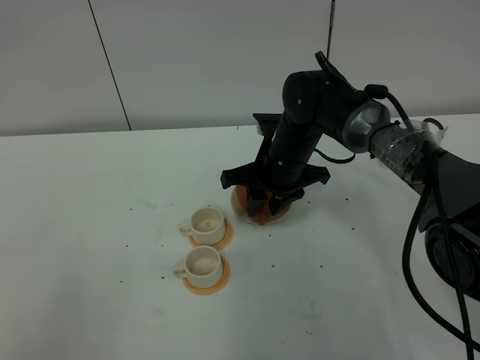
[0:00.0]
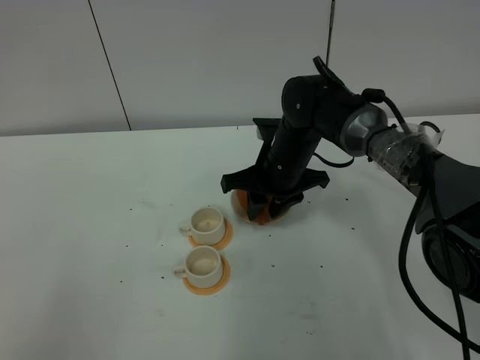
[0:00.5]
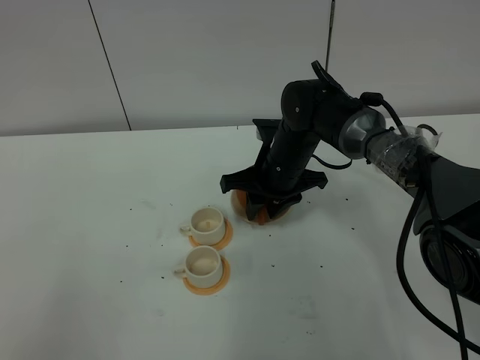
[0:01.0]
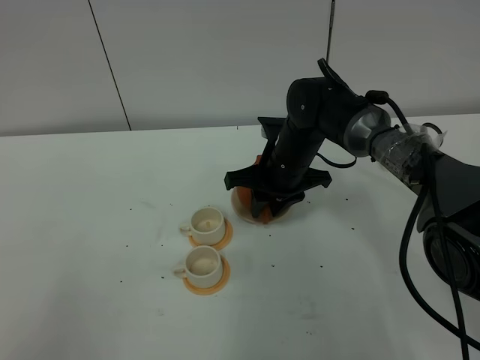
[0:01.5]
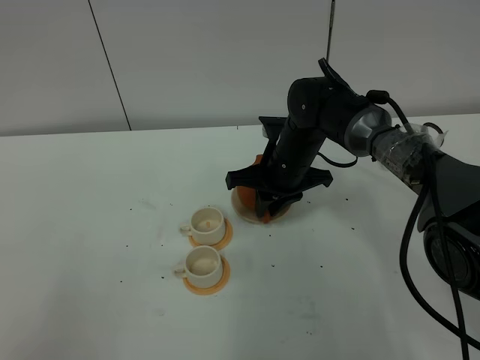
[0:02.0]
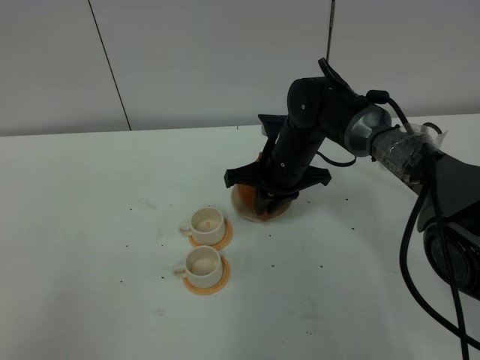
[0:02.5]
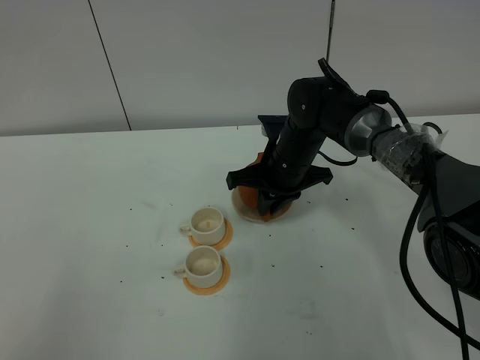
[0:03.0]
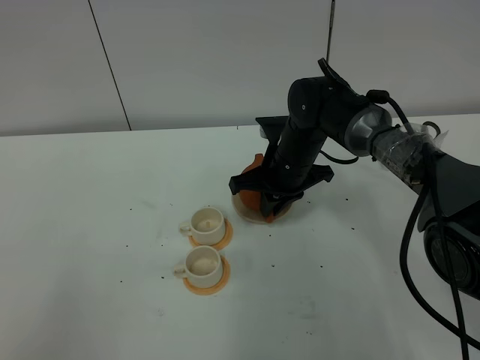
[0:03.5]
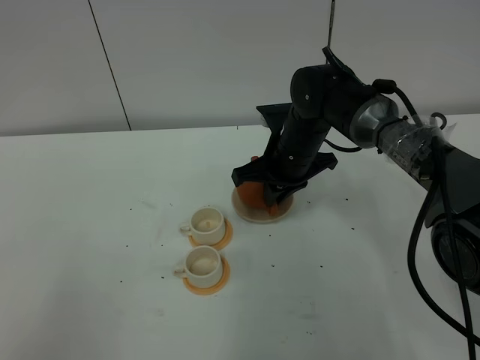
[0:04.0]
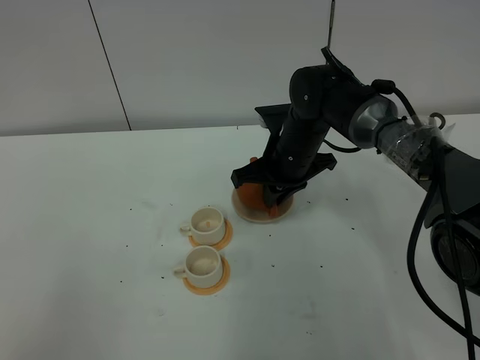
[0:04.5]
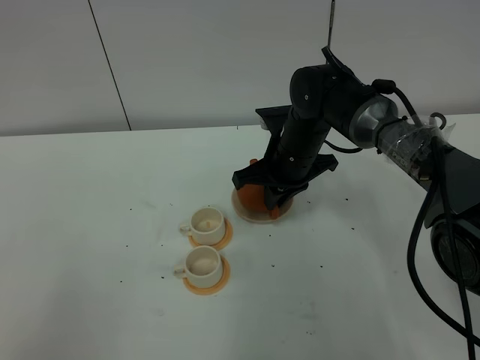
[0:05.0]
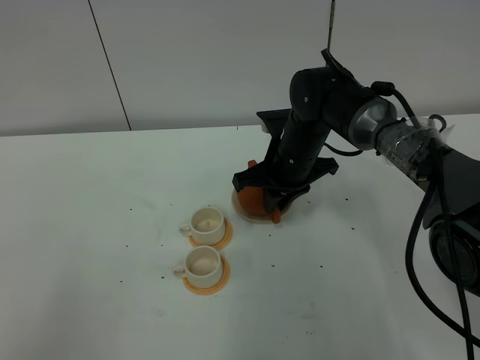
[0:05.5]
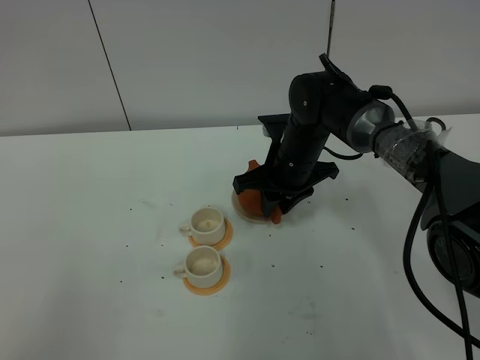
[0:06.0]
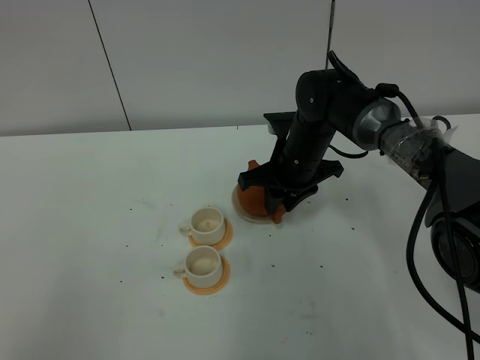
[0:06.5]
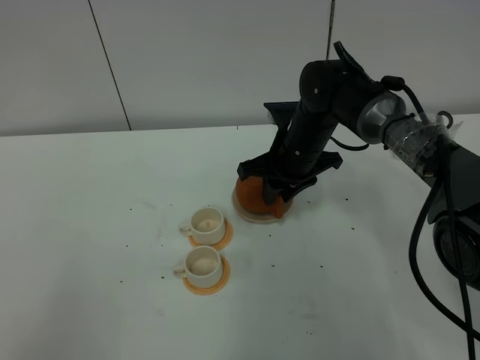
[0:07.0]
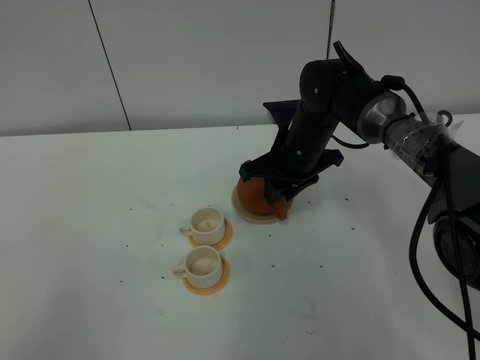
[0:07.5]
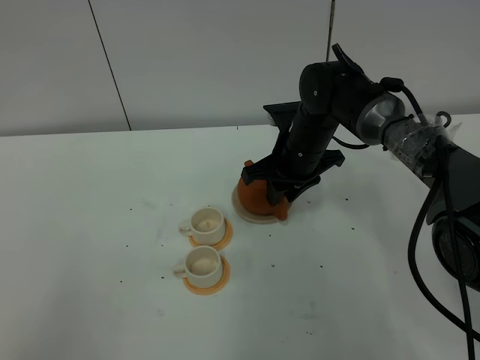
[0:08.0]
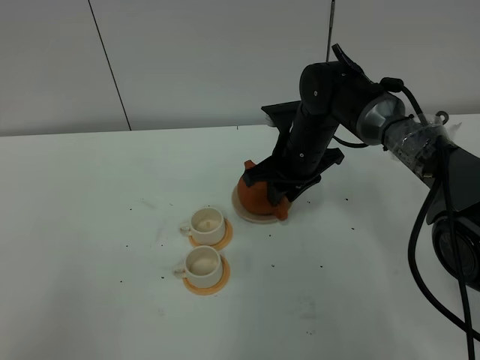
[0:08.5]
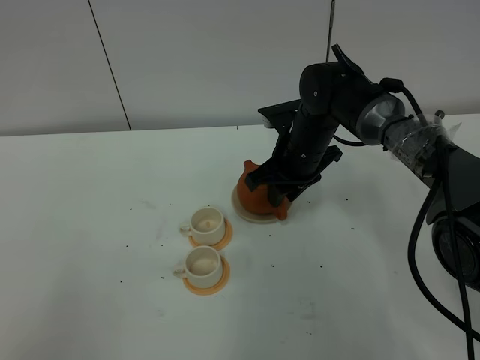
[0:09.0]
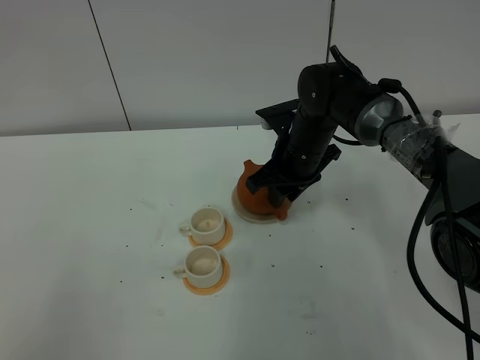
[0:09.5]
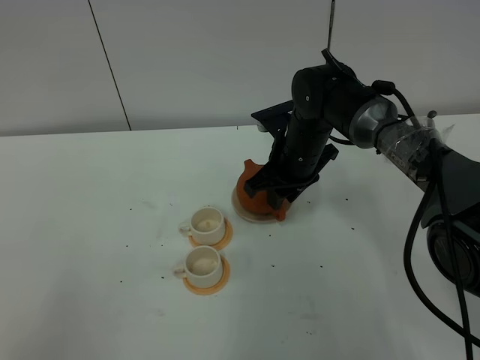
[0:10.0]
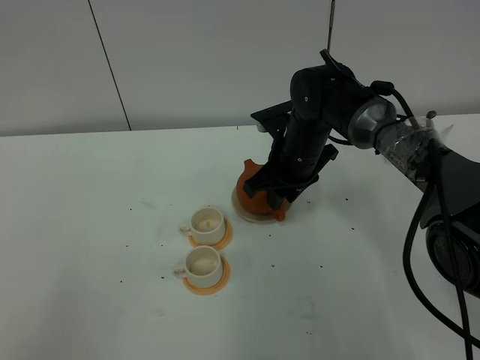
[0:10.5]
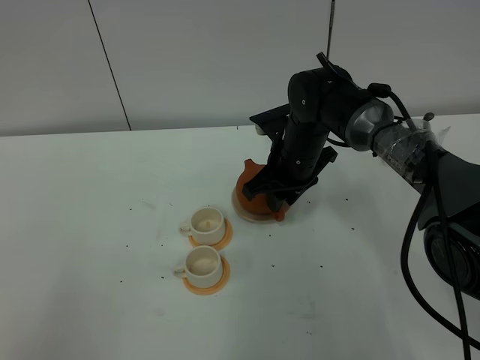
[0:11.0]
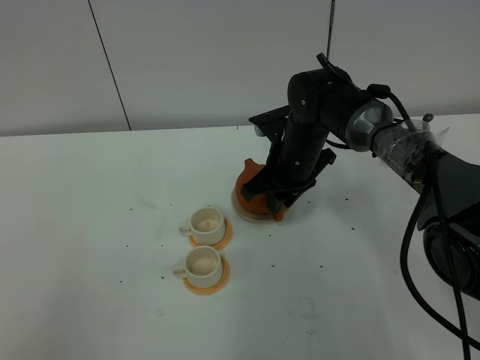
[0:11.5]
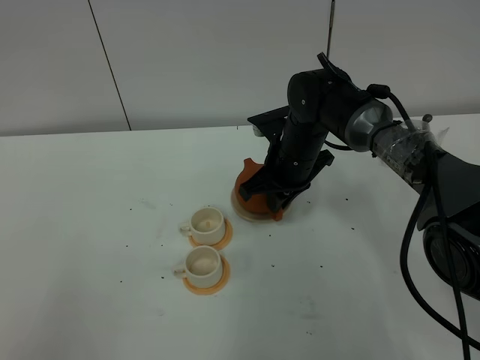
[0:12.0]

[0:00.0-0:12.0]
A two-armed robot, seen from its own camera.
Task of the whole recording: grasp the brown teapot and pour the tea into the two white teacups one by one, put the brown teapot back in its original place.
0:00.0 to 0:02.0: The right gripper closes up.
0:02.0 to 0:04.0: There are only small adjustments of the grippers.
0:04.0 to 0:06.0: The right gripper opens its fingers.
0:06.0 to 0:10.0: The grippers stay close to where they were, moving slightly.
0:10.0 to 0:12.0: The right gripper closes its fingers.

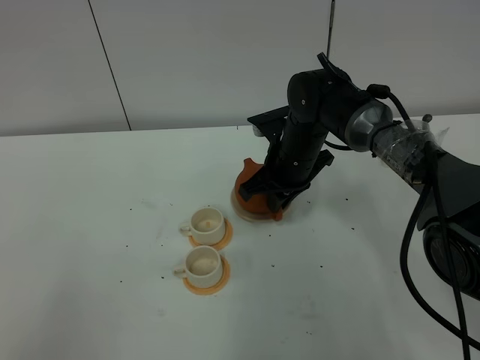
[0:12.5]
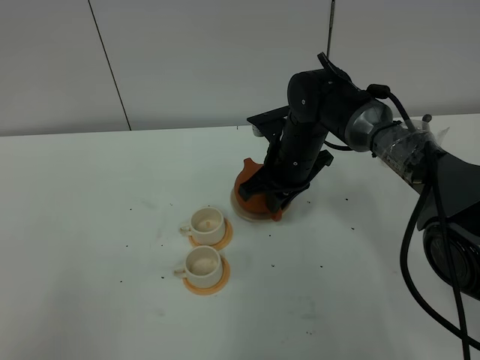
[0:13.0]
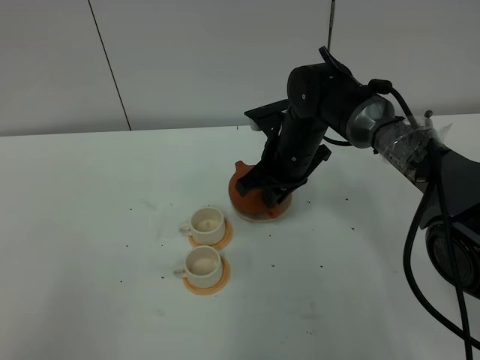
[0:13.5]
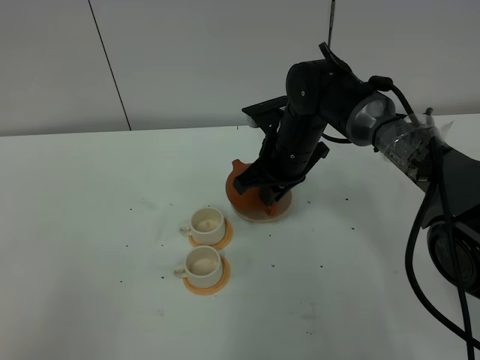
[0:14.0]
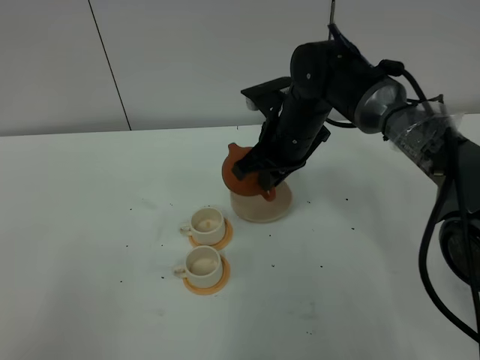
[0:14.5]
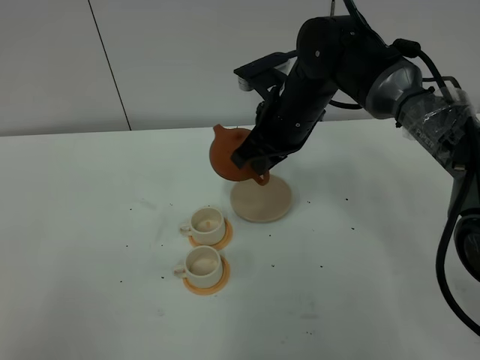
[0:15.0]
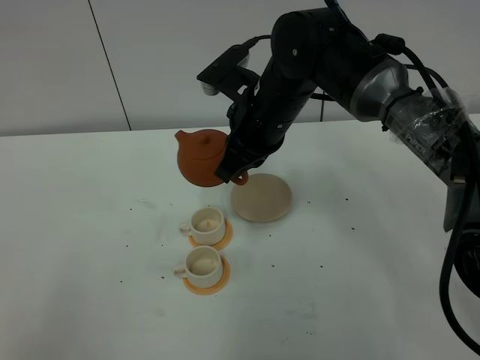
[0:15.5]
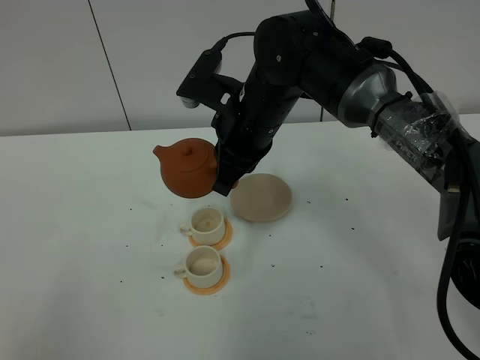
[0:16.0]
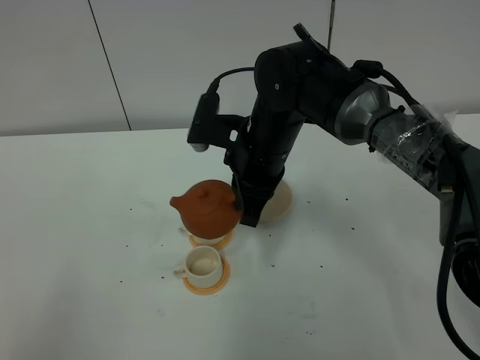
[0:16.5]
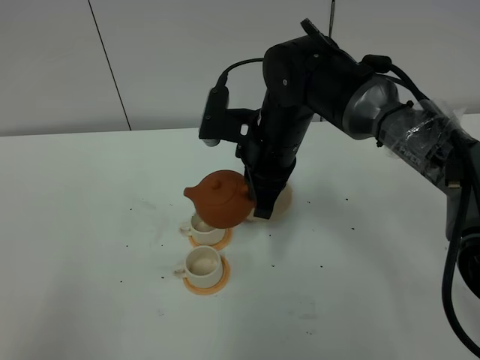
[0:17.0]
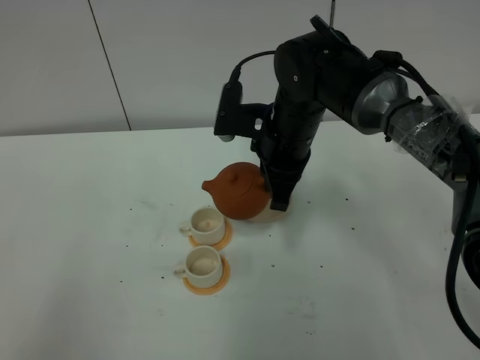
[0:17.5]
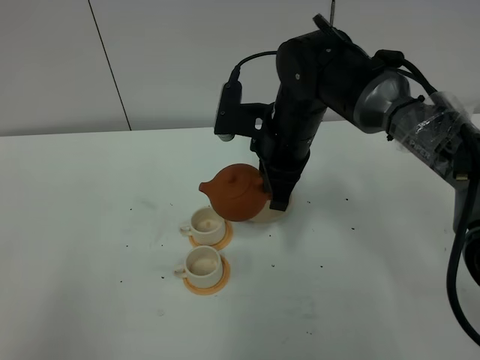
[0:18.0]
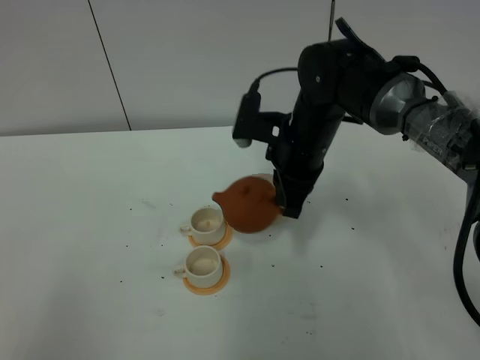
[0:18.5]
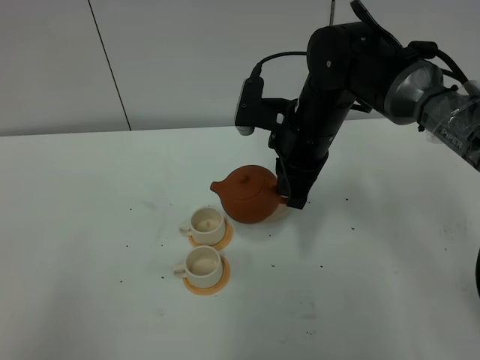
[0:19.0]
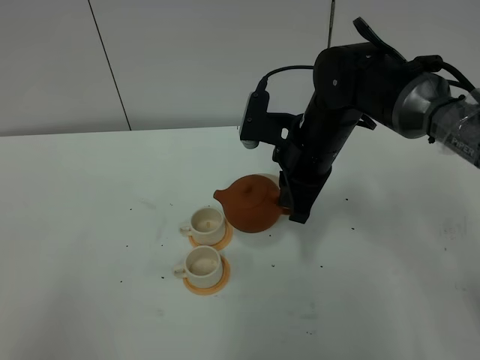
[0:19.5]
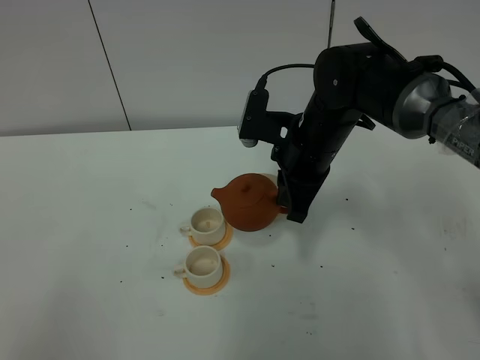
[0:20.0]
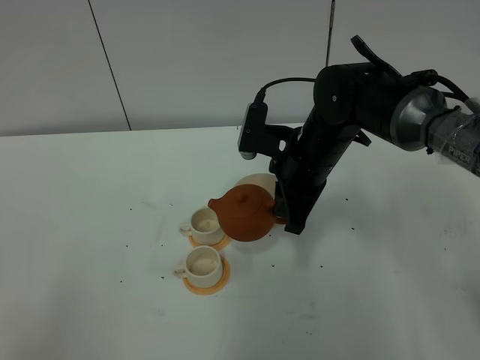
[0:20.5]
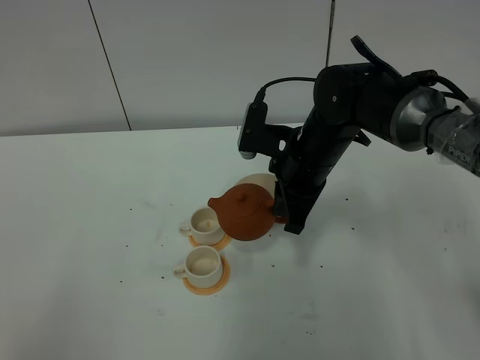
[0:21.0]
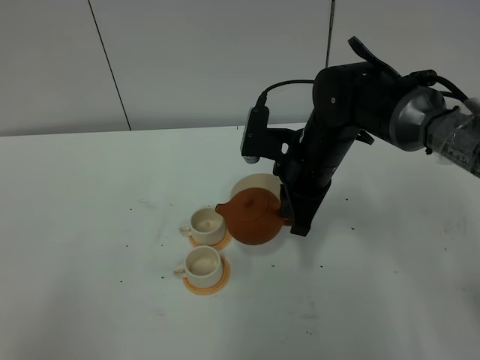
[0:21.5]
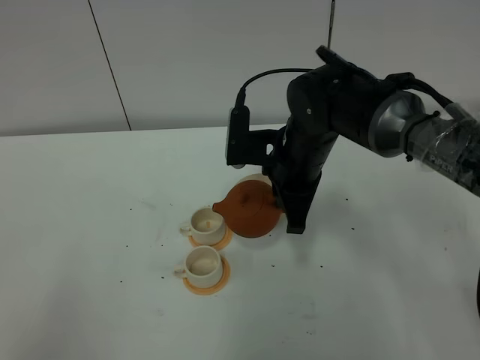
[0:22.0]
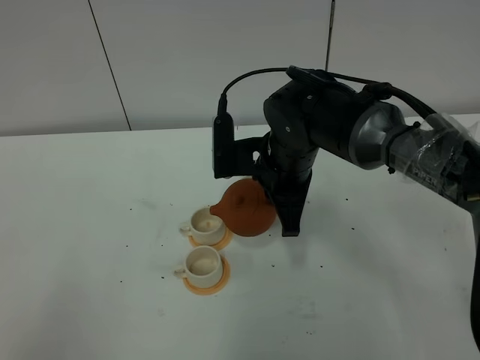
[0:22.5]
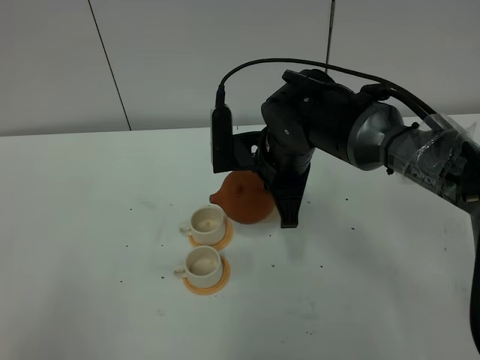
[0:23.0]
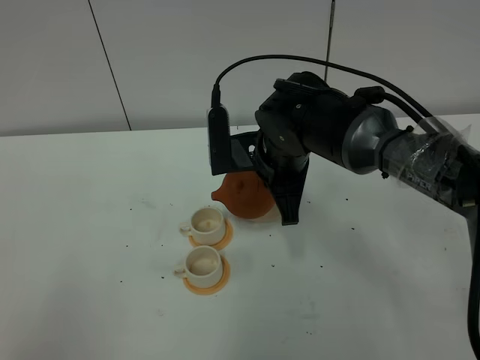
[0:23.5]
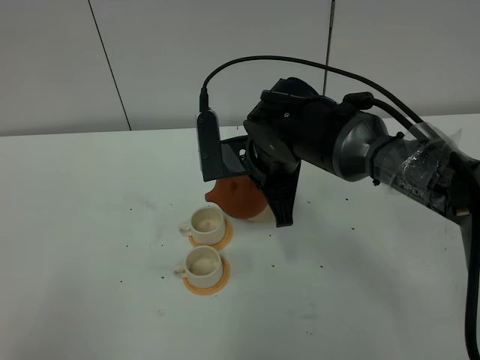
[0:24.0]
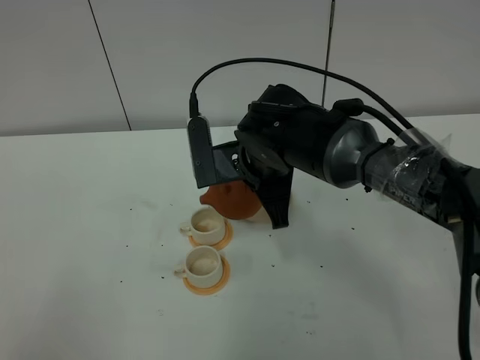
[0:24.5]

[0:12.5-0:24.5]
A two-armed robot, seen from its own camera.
Task of the whole recording: grasp the brown teapot and pour the tea into the two white teacups one by one, put the brown teapot back in its original place.
Step, 0:12.5 to 0:14.5: Pick up the teapot with the right gripper.
0:12.5 to 0:14.5: The right gripper heads upward, covering about 5 cm.
0:14.5 to 0:16.5: The right gripper is displaced backward by roughly 5 cm.
0:16.5 to 0:18.5: The right gripper shifts by about 5 cm.
0:18.5 to 0:20.5: The grippers stay close to where they were, moving slightly.
0:22.5 to 0:24.5: The grippers move only a little.

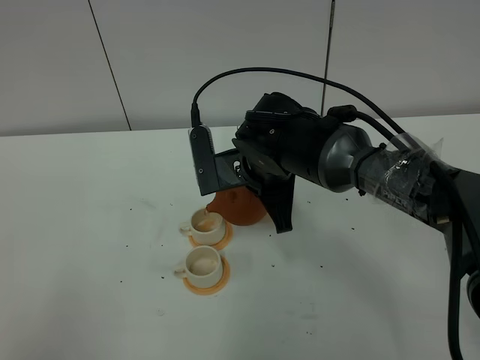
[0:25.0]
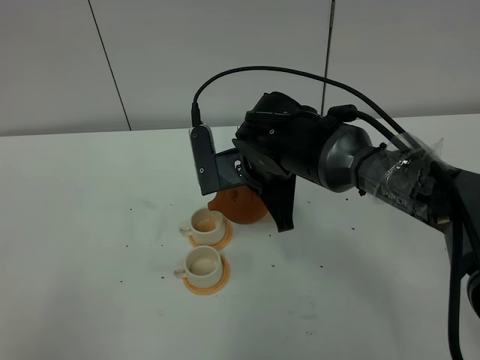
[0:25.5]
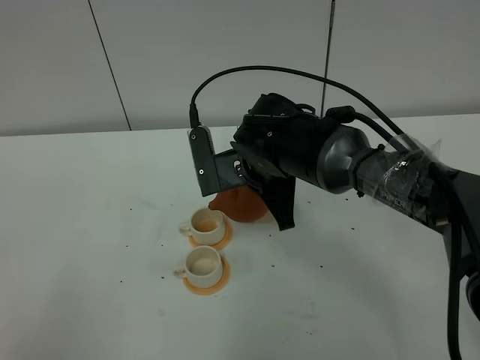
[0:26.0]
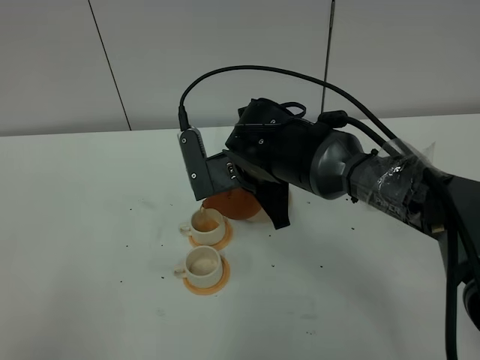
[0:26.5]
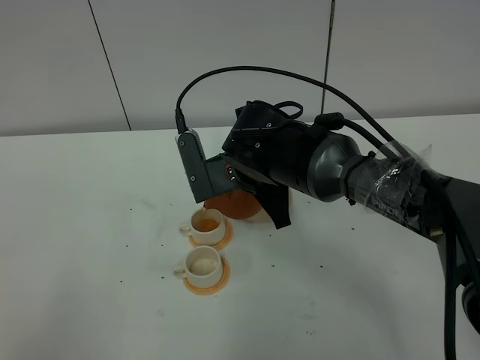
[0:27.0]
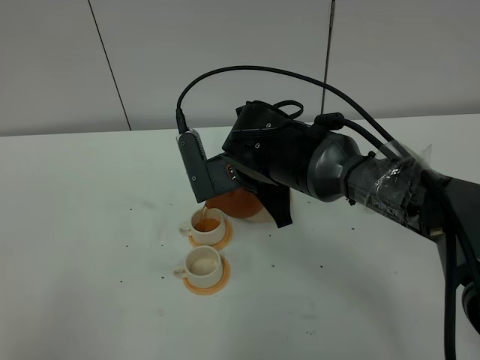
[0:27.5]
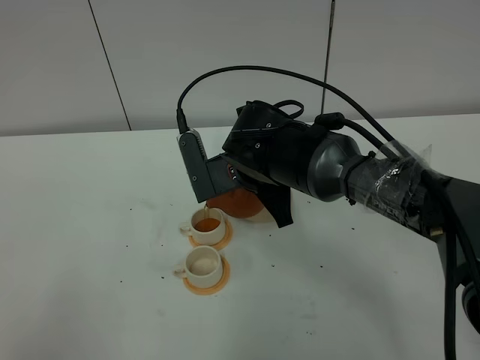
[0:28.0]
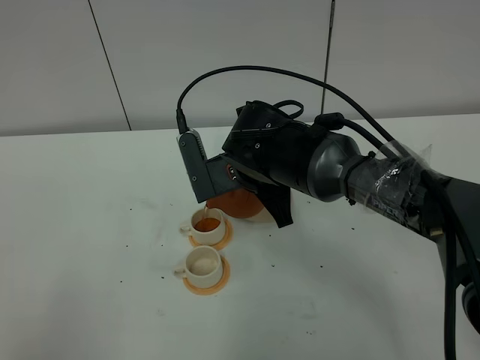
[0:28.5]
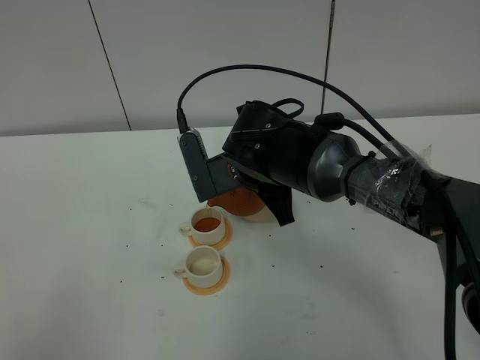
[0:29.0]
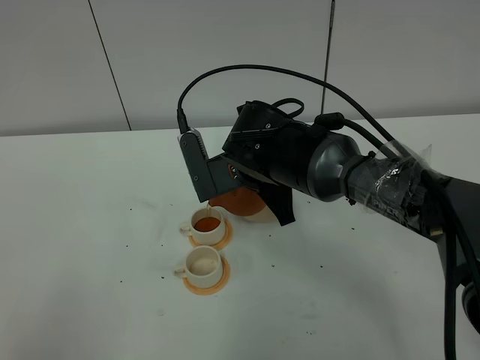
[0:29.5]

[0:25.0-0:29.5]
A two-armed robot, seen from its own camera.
Task of the whole recording: grasp the brown teapot and pour the tea into the two white teacups one by one, put the brown teapot back in its original place.
0:25.0 to 0:27.0: There are only small adjustments of the grippers.
0:27.0 to 0:29.5: Neither gripper changes place.
